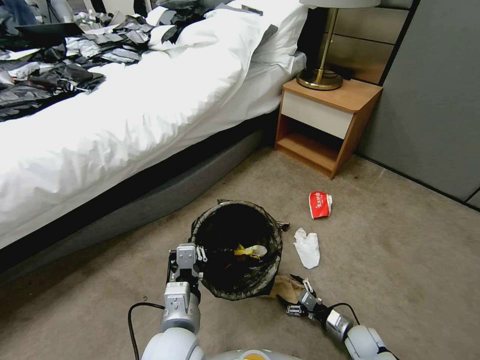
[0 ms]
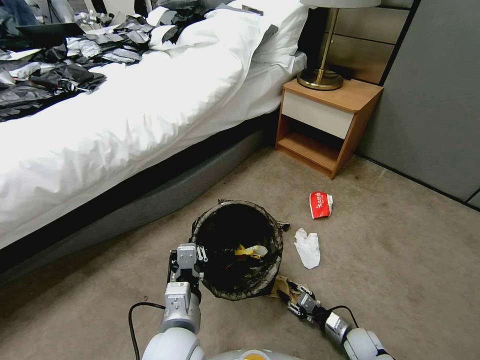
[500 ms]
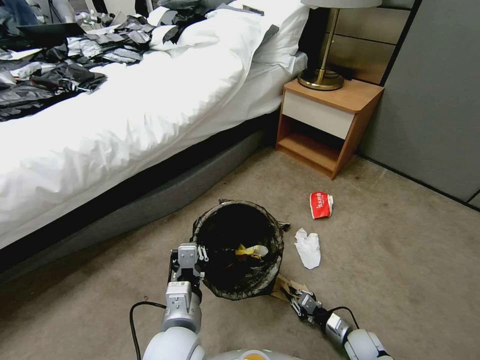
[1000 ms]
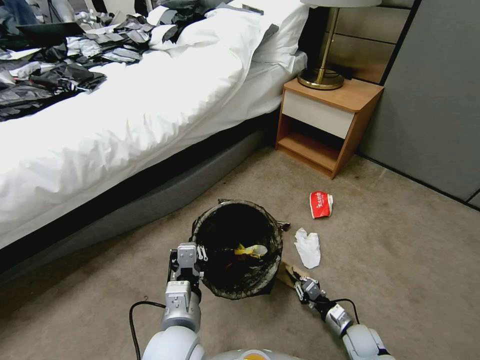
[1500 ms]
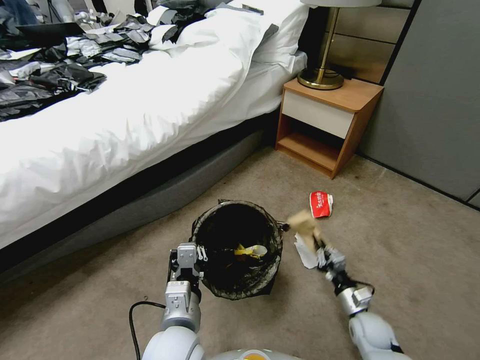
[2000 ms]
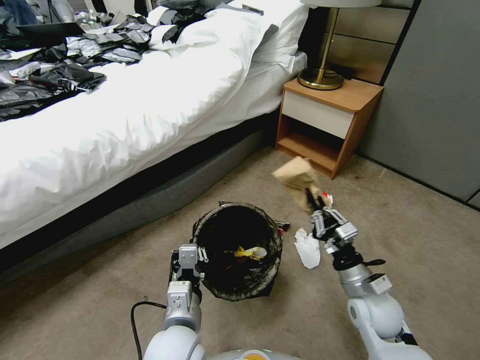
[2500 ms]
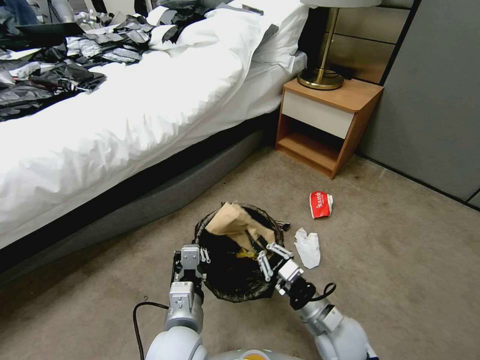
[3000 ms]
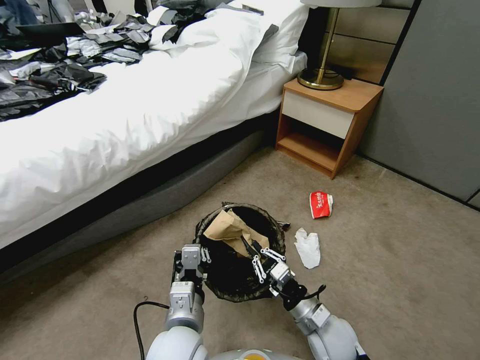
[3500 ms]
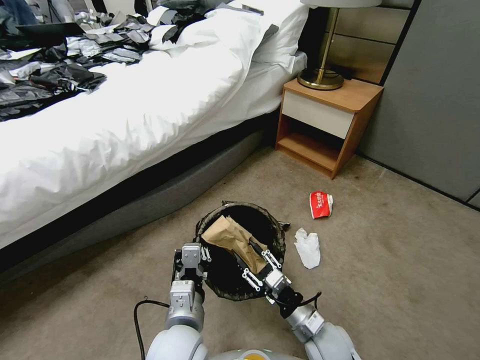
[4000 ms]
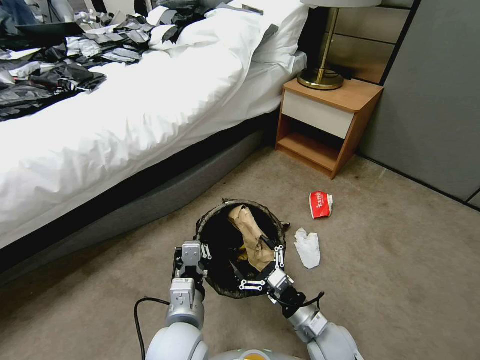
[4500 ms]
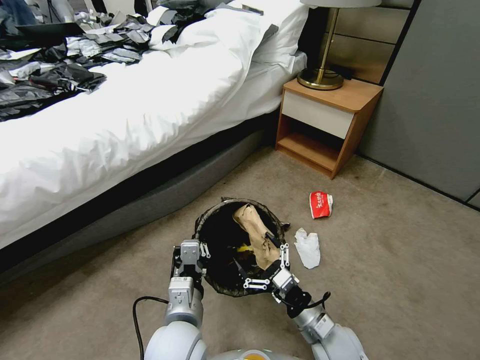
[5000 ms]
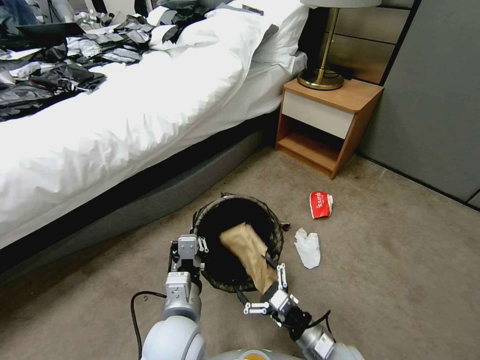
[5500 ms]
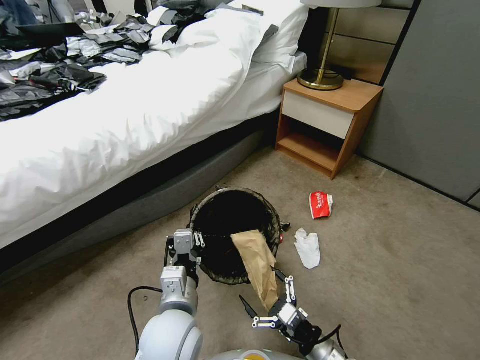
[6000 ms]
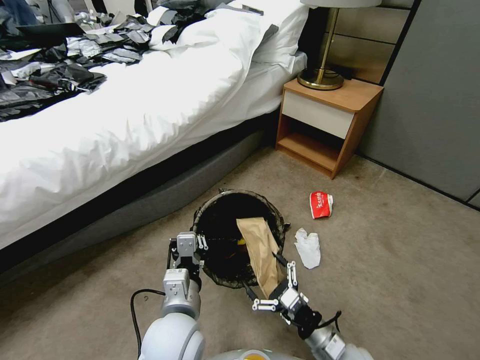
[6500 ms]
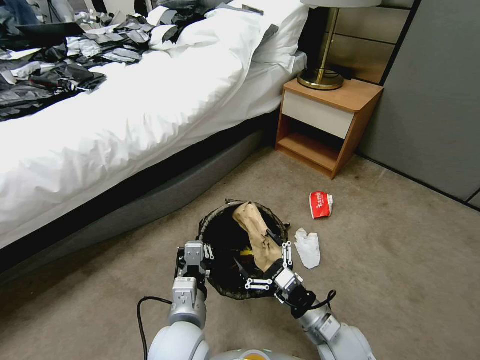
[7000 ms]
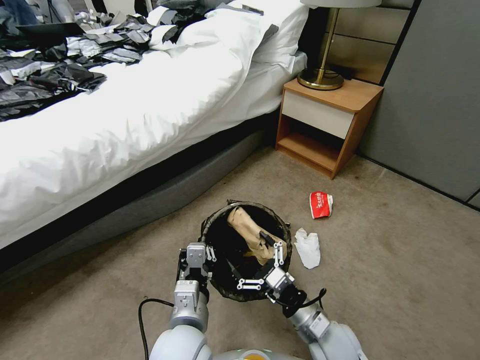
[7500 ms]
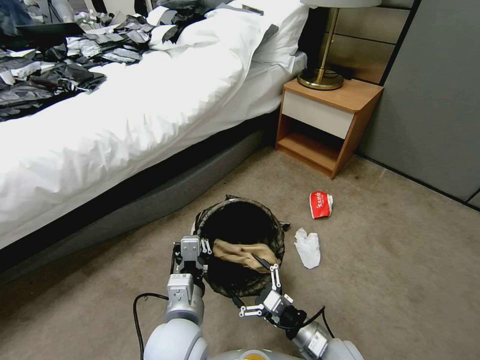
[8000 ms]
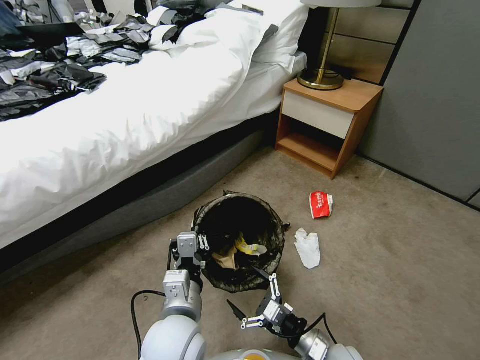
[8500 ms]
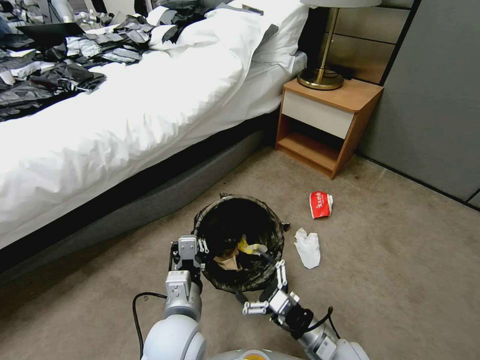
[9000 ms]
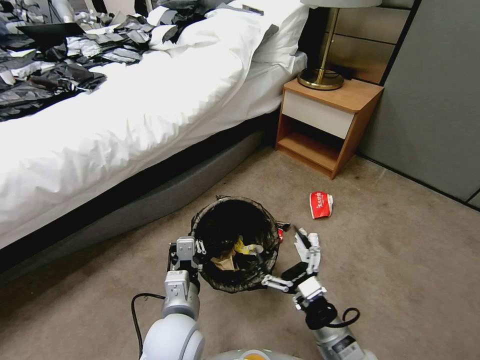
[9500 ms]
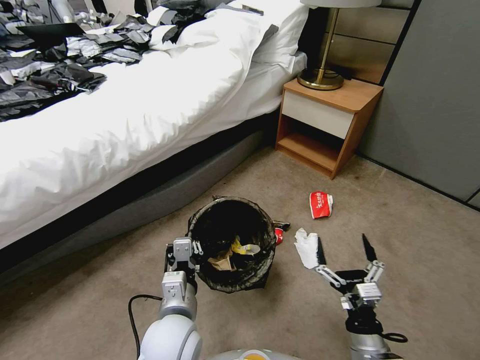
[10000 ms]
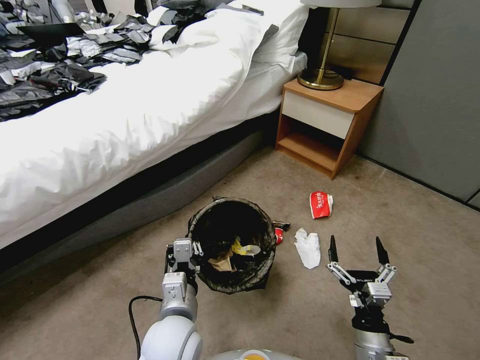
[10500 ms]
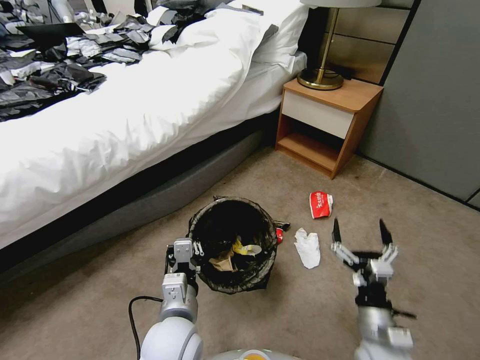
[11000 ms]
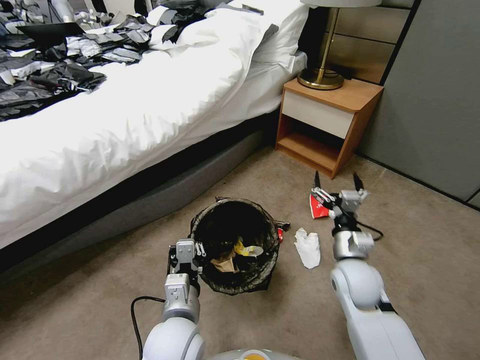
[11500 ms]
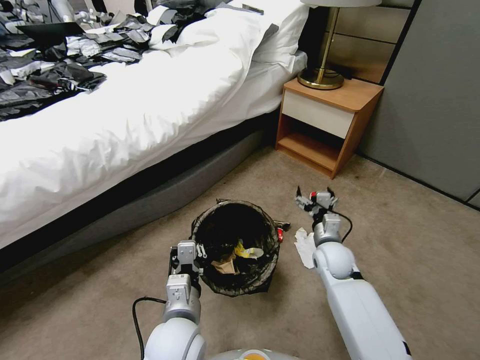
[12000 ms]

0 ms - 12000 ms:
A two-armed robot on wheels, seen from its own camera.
Task of the whole recording: Pick up the trash bin, then pick up the garbage from the floor and place it into the trash bin.
0 ms - 2000 ms: The right gripper closes its fingers.
2000 ms - 4000 ms: The right gripper goes roughly 20 cm to the left and upward, and opens its fingers.
4000 ms - 6000 ms: The right gripper goes roughly 5 cm backward, and opens its fingers.
8000 ms - 10000 ms: The right gripper moves roughly 10 cm.
10000 ms - 12000 ms: The right gripper heads forward, covering approximately 25 cm.

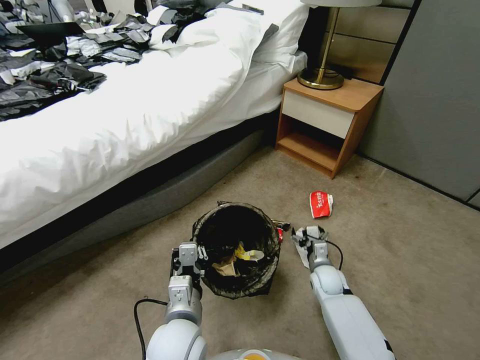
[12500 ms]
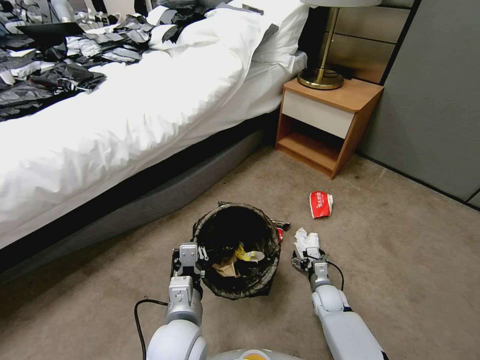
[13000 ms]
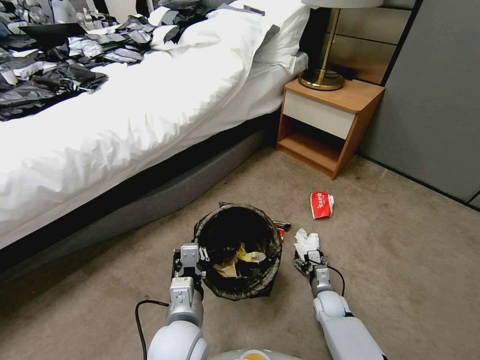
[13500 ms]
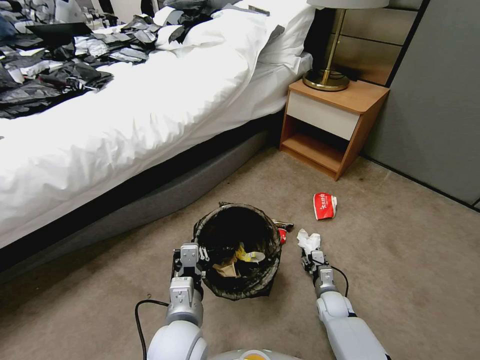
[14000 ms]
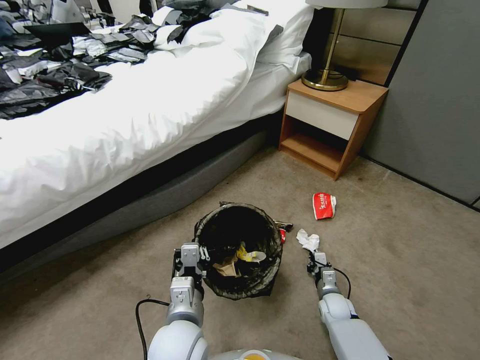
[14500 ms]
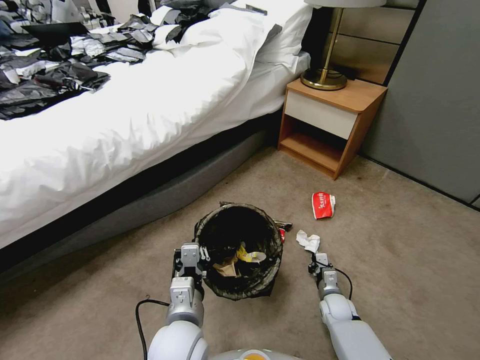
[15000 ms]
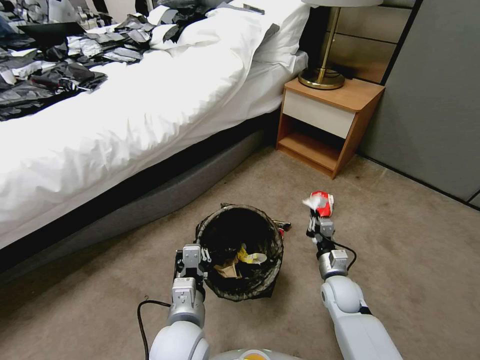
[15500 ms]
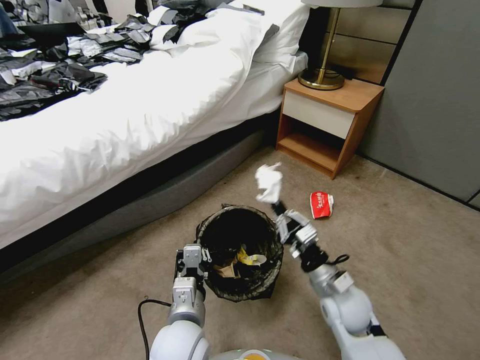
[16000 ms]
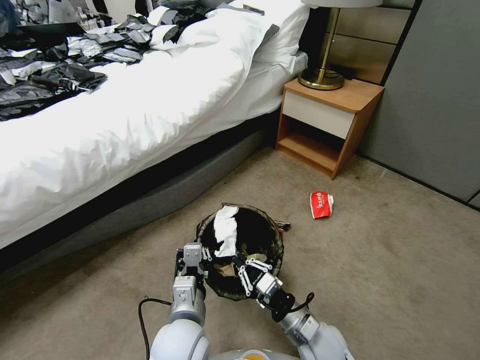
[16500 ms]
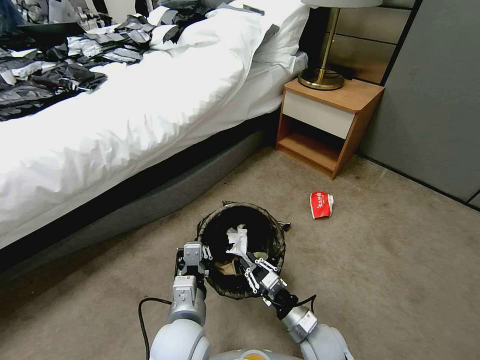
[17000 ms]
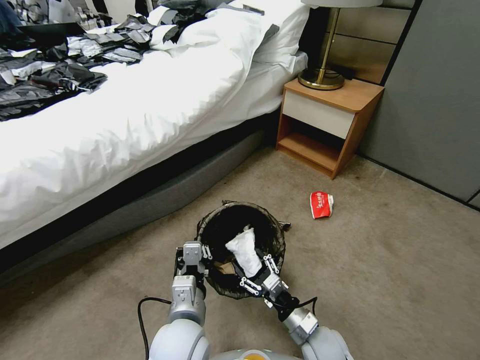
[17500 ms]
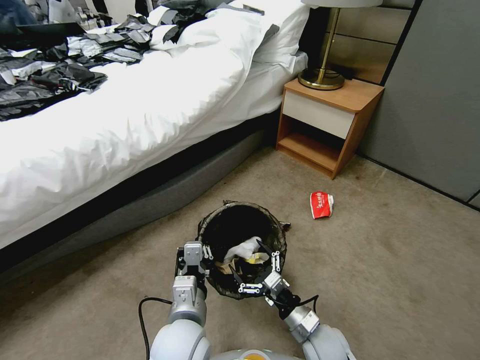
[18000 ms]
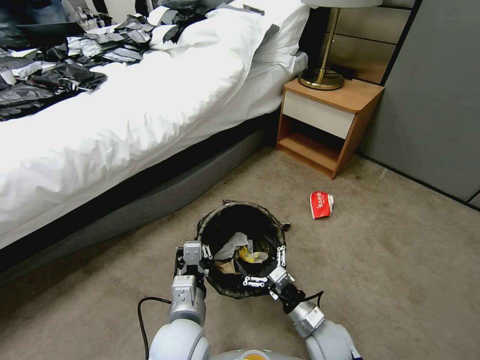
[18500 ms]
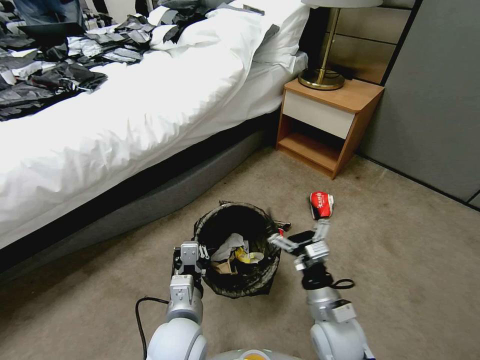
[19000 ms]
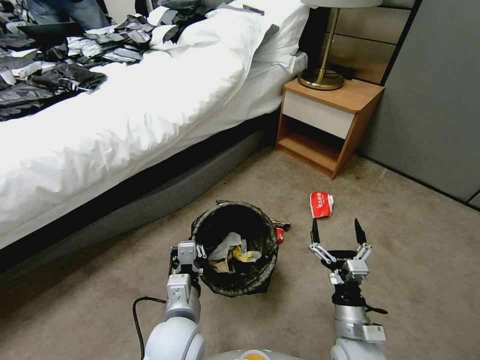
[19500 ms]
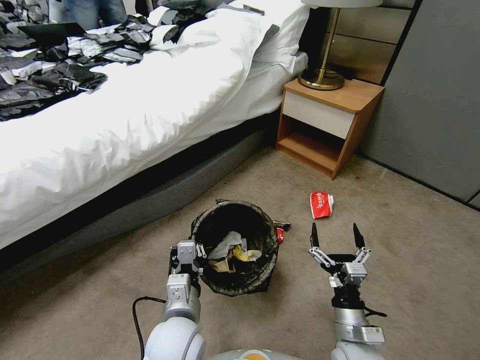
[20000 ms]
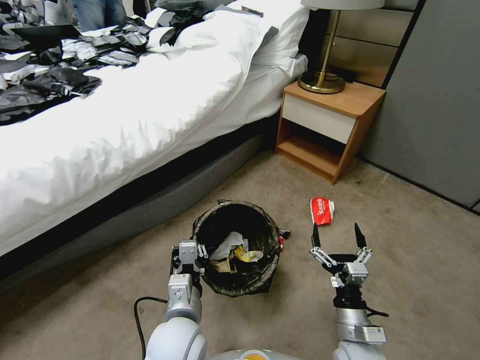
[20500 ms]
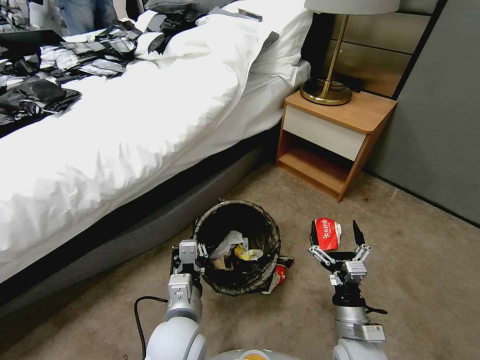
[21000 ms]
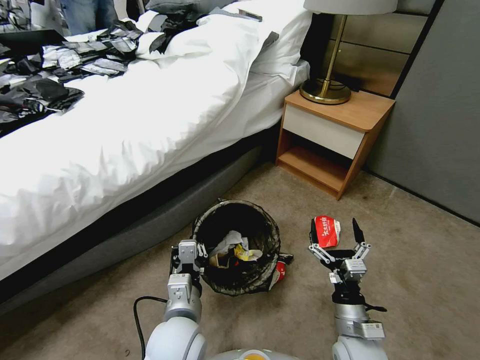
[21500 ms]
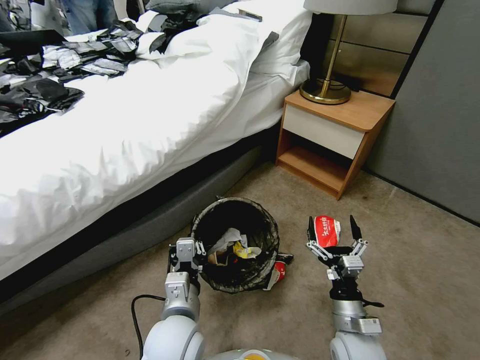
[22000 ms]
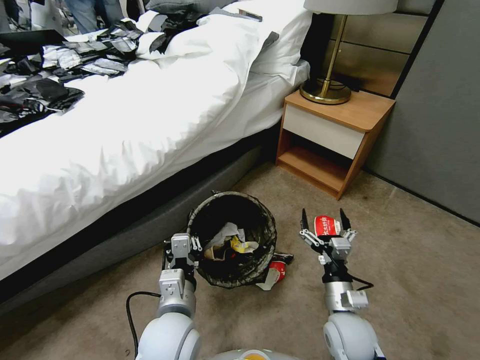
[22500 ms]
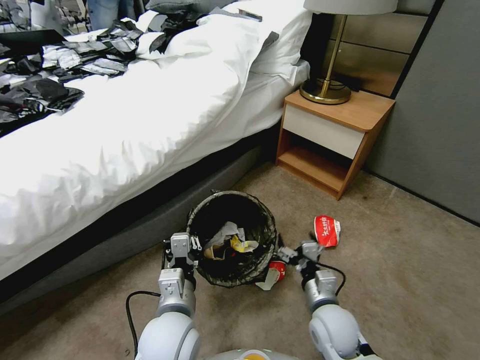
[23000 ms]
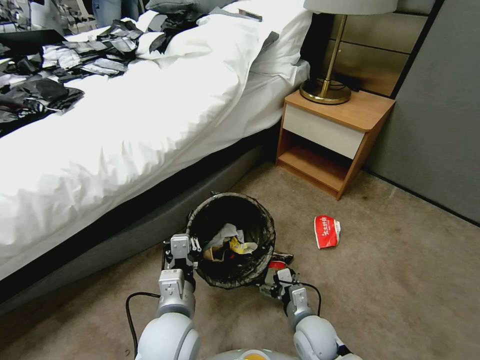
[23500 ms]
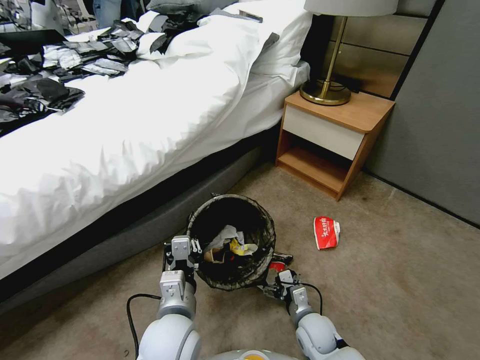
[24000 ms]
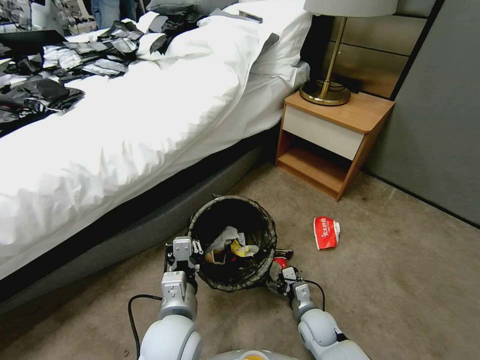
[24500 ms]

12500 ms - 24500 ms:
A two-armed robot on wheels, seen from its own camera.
Task of the whole recording: Pick up the trash bin, then pick up the garbage from the floor and place it into the trash bin.
12500 ms - 14500 ms: The right gripper heads downward and backward, covering about 10 cm, and closes.
14500 ms - 16500 ms: The right gripper travels upward, to the left and backward by approximately 25 cm.
16500 ms - 18500 ms: The right gripper opens up.
18500 ms - 20500 ms: The right gripper shifts by roughly 5 cm.
22500 ms - 24500 ms: The right gripper shifts about 15 cm downward.

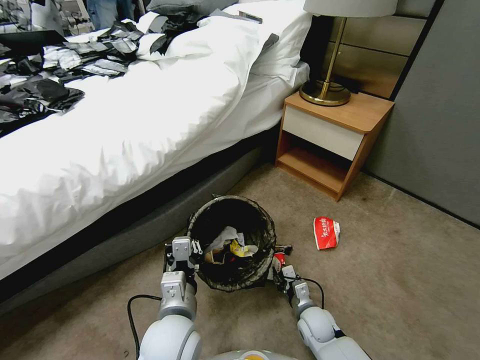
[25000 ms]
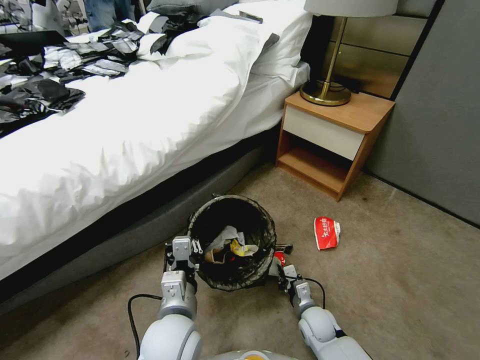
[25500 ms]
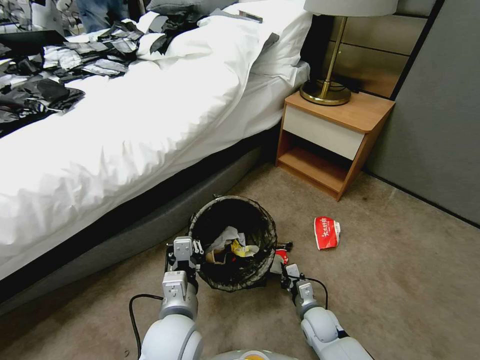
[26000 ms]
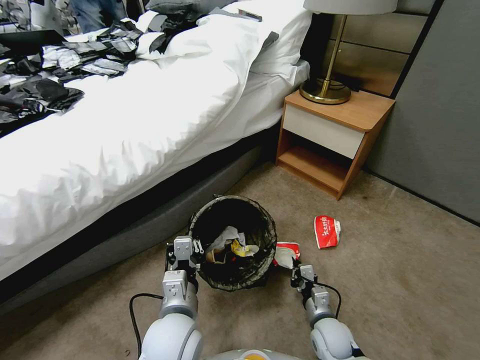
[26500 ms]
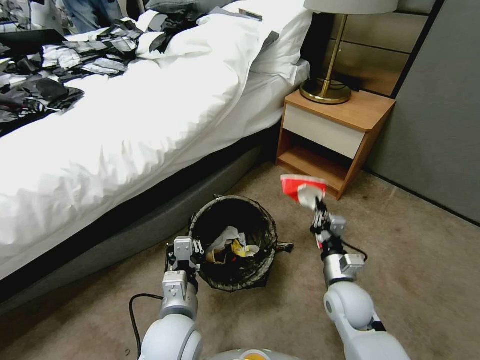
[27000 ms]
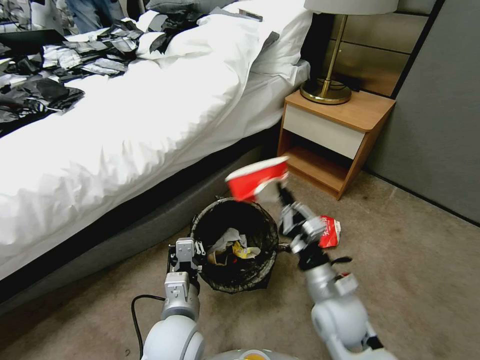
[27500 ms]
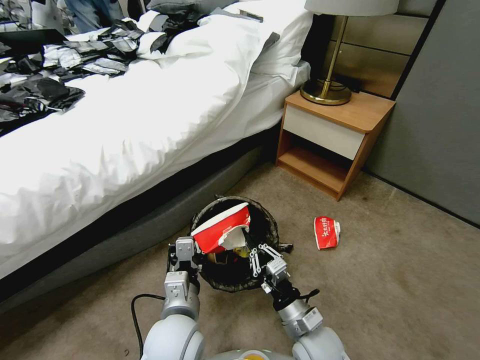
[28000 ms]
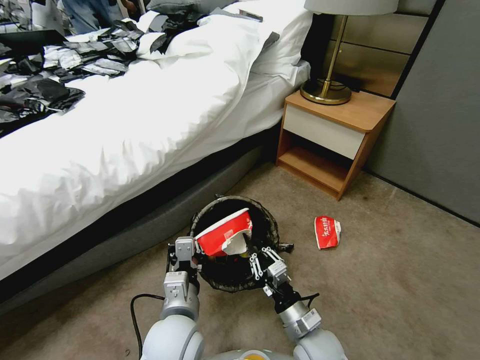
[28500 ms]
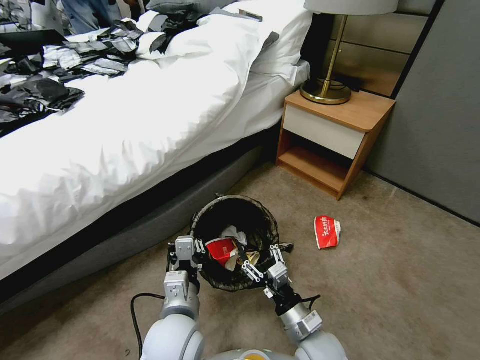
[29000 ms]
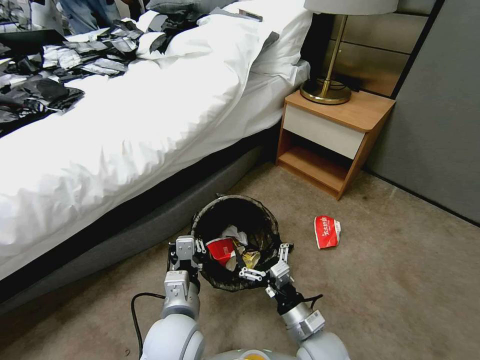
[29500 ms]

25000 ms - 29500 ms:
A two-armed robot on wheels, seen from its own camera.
Task of the whole recording: Pick up the trash bin, then pick up the garbage from the floor and place it into the trash bin.
25000 ms - 27000 ms: The right gripper heads upward, covering roughly 15 cm, and closes its fingers.
27000 ms - 29500 ms: The right gripper heads backward and to the left, covering approximately 10 cm, and opens its fingers.
